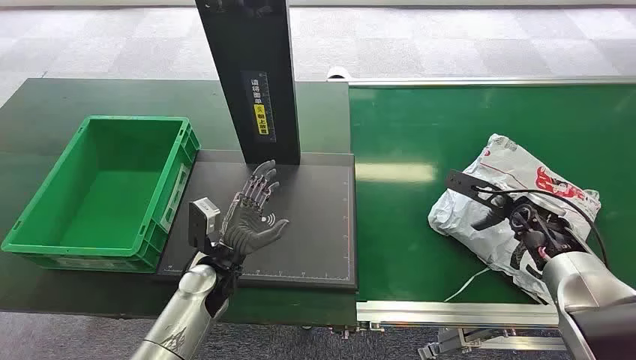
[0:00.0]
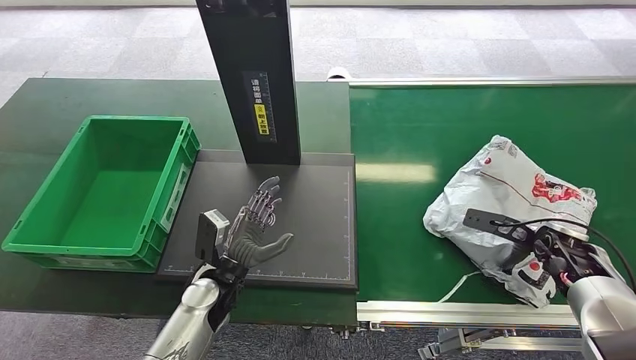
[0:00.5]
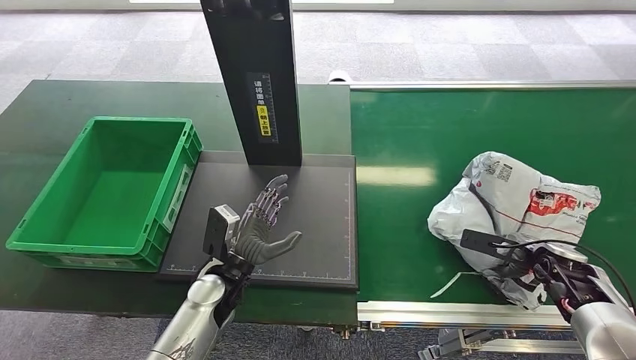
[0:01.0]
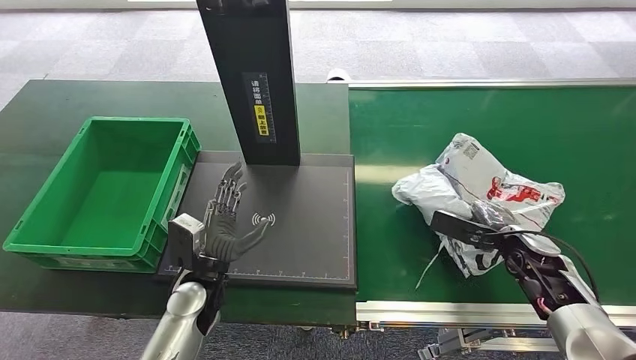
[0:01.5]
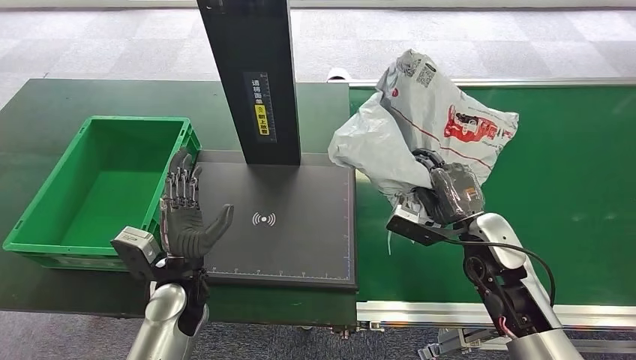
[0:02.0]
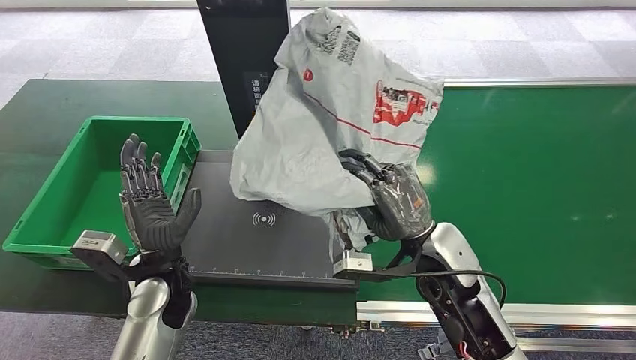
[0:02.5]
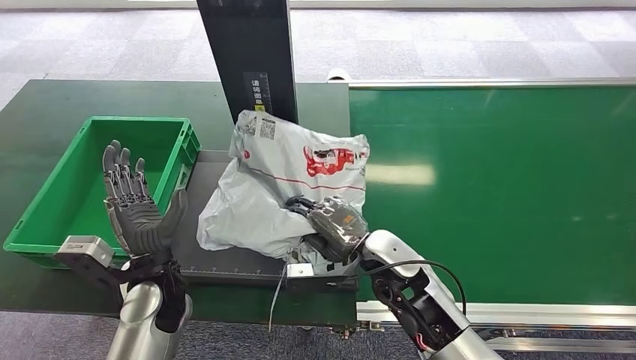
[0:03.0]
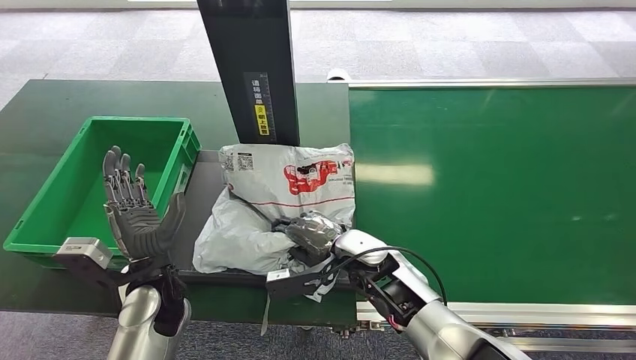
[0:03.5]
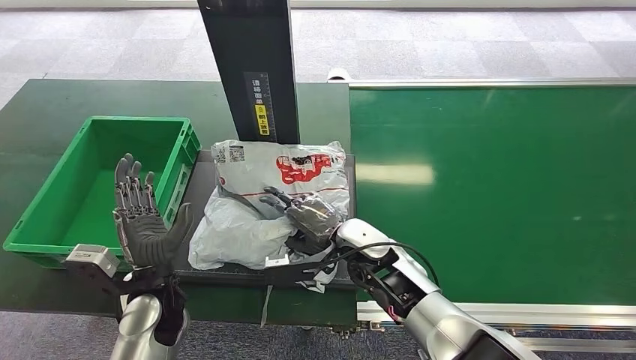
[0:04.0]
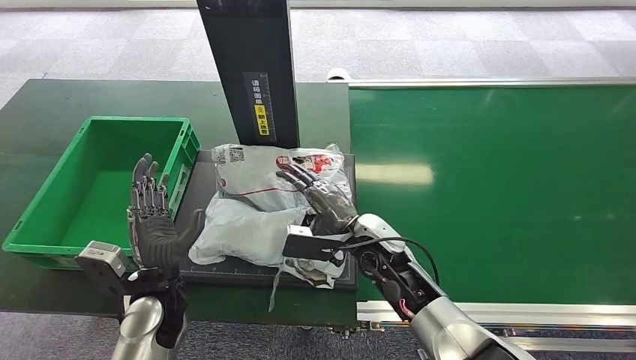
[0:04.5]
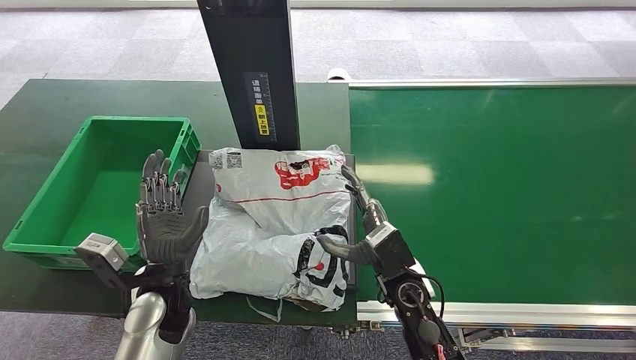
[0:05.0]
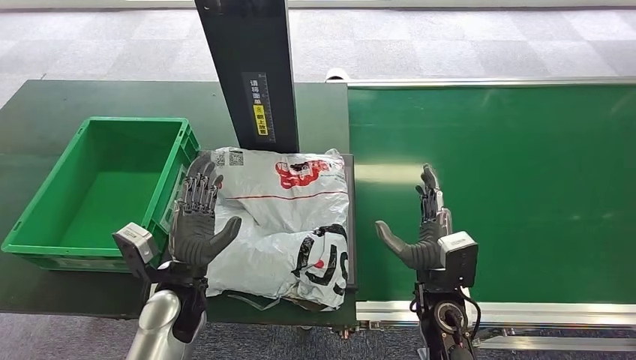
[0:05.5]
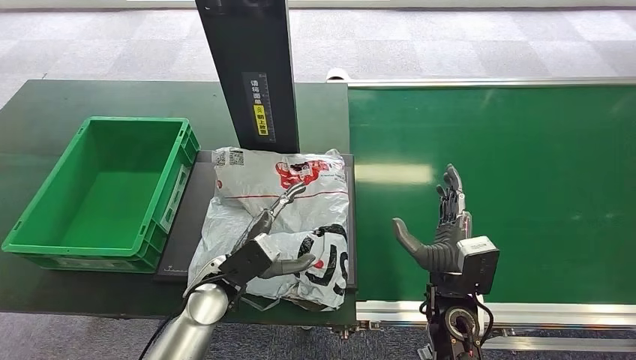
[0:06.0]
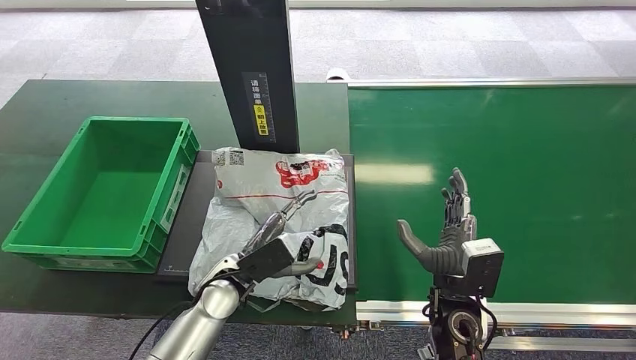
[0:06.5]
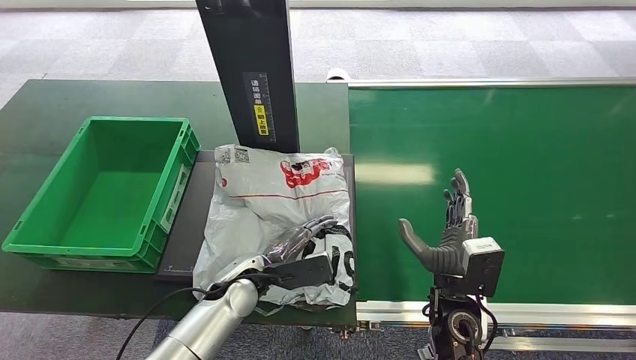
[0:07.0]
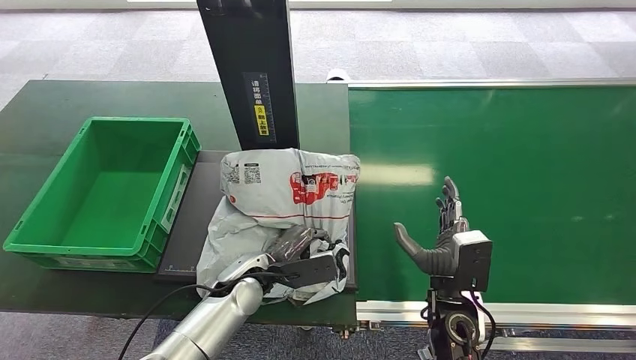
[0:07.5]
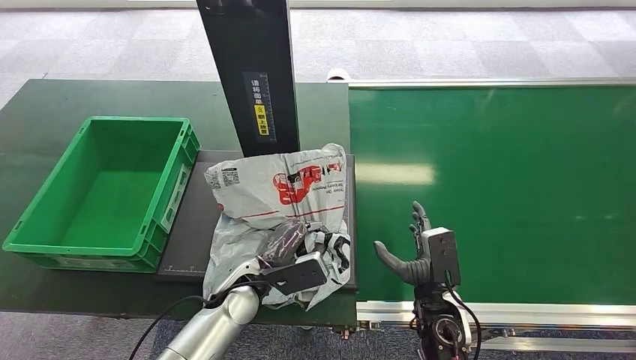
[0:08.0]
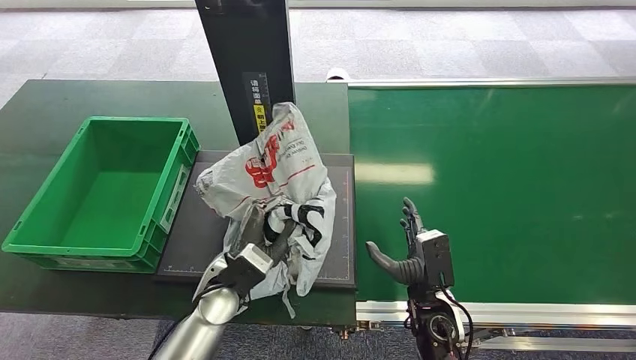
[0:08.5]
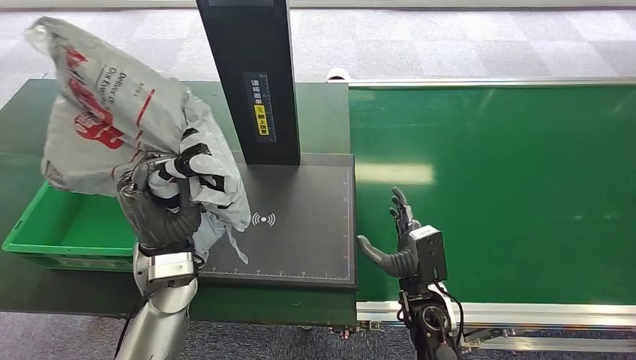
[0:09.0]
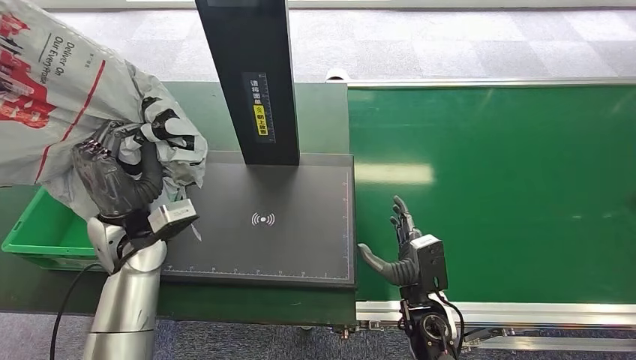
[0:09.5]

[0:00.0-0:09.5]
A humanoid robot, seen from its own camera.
Task of the whole recording: Weigh the package on the weighing device and place it in the left basket.
Step, 0:00.0 to 0:01.5: Pick up the package from the conveyor belt.
Step, 0:02.5 to 0:05.0: Place the package onto the inbound machine.
Step, 0:05.5 to 0:08.5: Pick up the package from the inbound machine.
0:04.0 to 0:05.5: The right hand travels to the right and backward by about 15 cm.
0:05.5 to 0:07.5: The left hand is displaced to the right by some 10 cm.

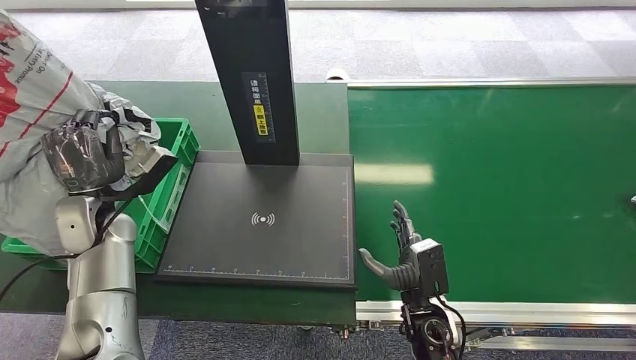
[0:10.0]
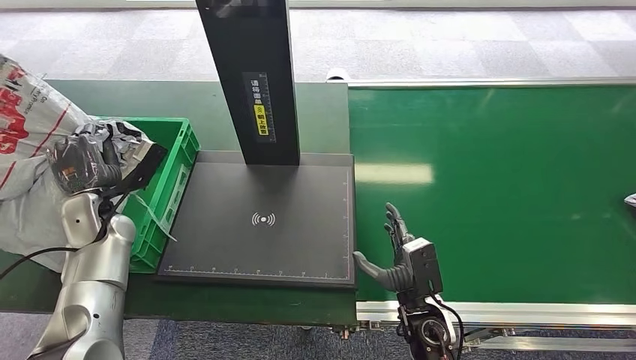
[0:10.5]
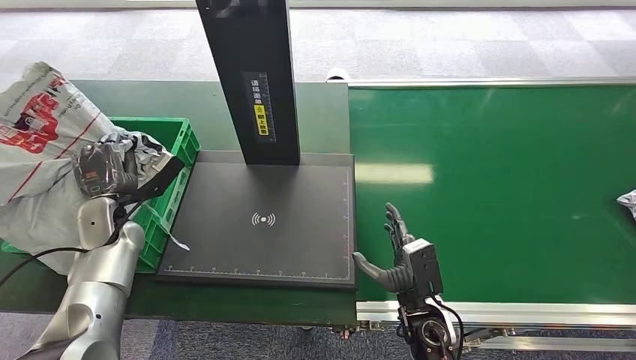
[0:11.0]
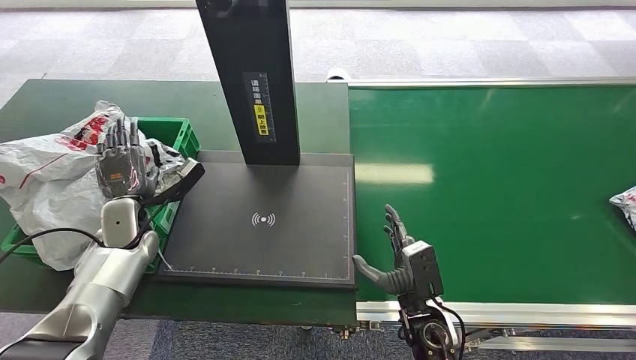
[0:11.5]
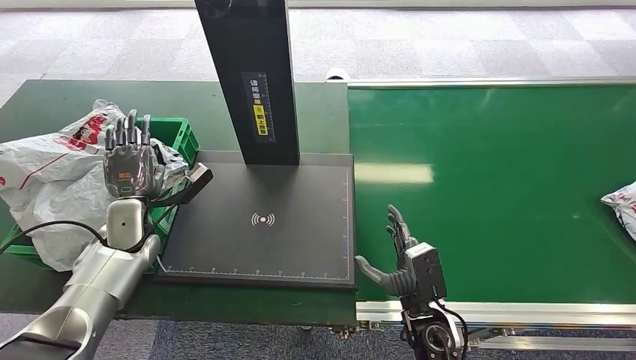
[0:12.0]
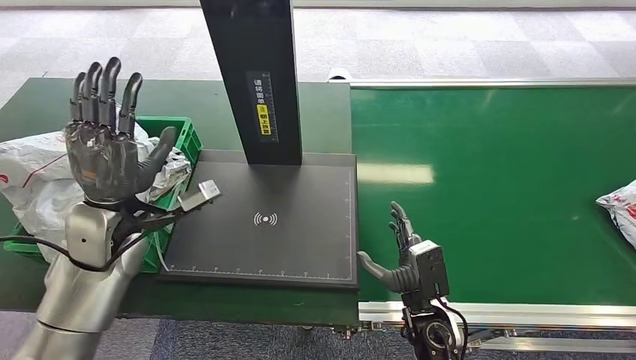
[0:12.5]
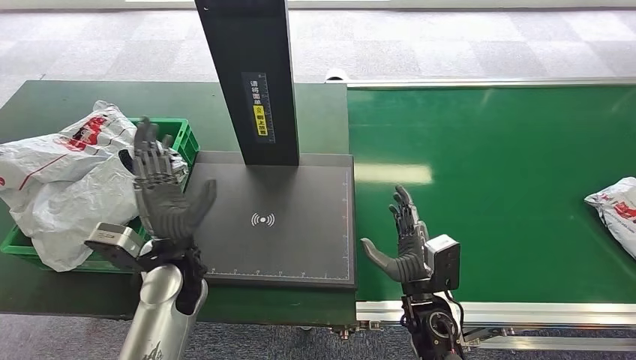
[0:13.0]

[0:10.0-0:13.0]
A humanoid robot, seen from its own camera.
Task of the whole recording: Weigh the package on the weighing device and place it in the left basket.
Step, 0:10.0 to 0:13.0: Place the package into the parcel locker.
0:10.0 to 0:11.5: The left hand goes roughly 5 cm downward.
0:11.5 to 0:13.0: The left hand moves to the right and backward, roughly 15 cm.

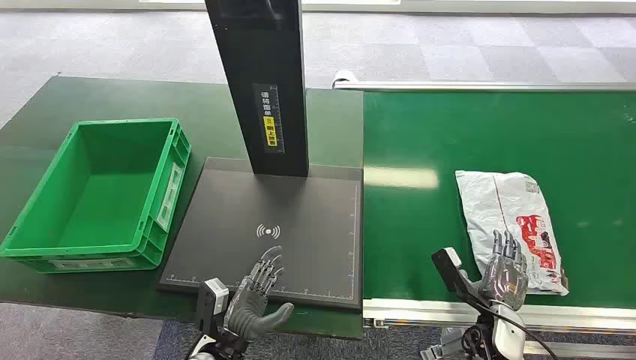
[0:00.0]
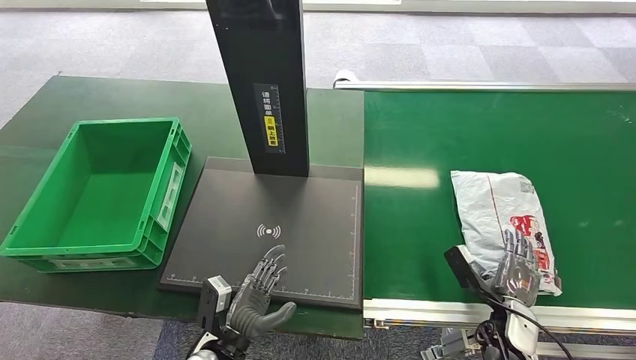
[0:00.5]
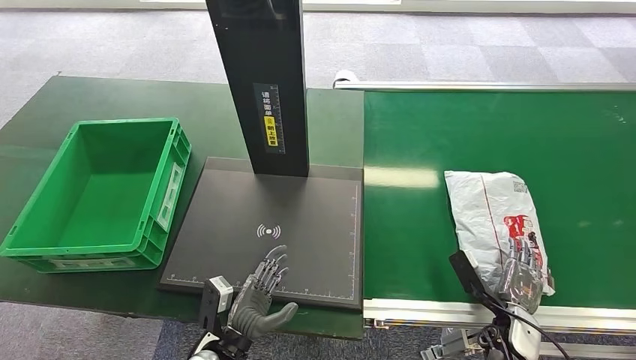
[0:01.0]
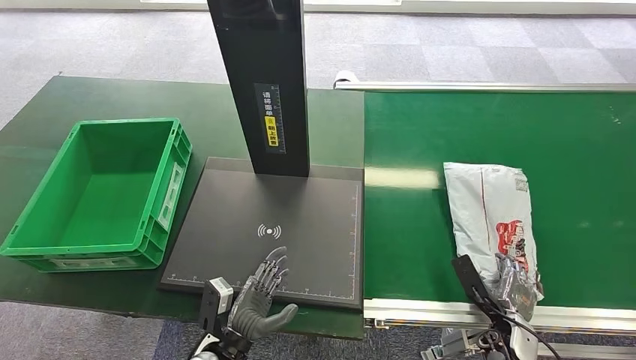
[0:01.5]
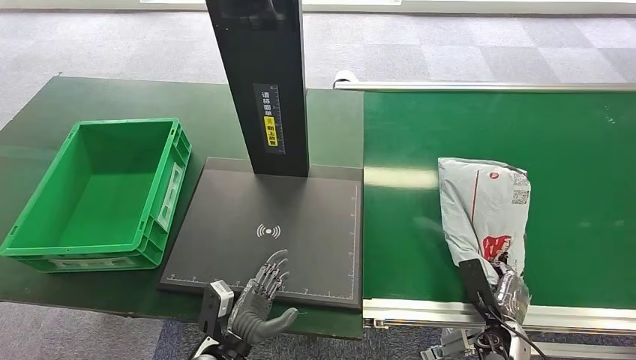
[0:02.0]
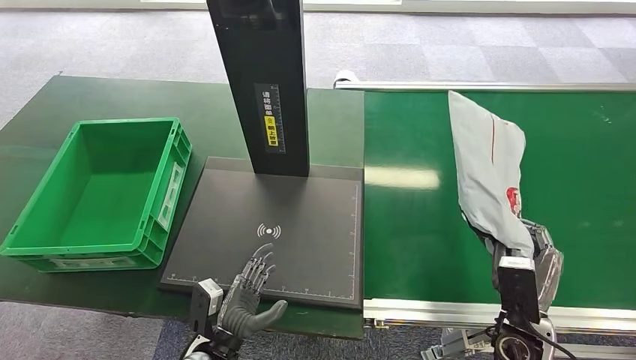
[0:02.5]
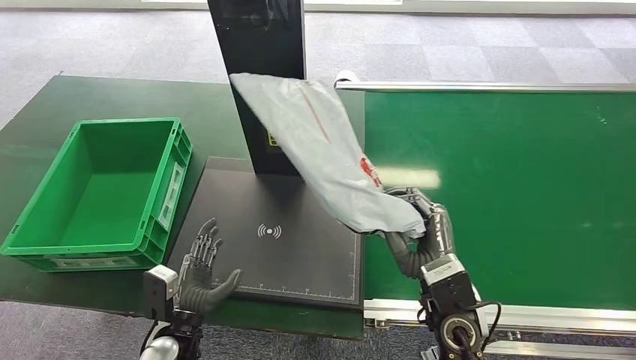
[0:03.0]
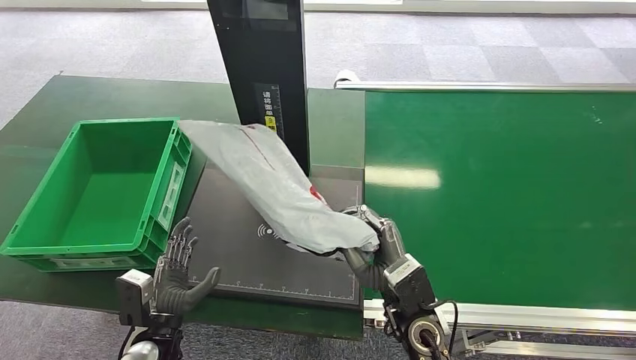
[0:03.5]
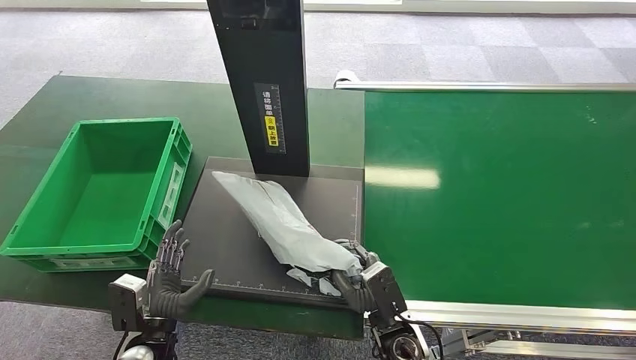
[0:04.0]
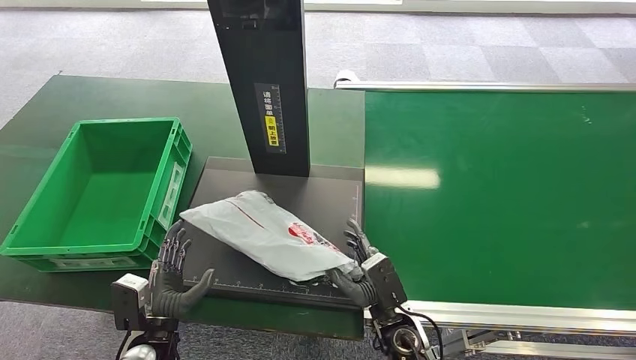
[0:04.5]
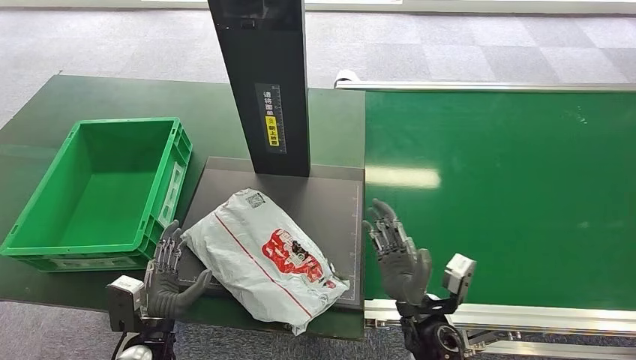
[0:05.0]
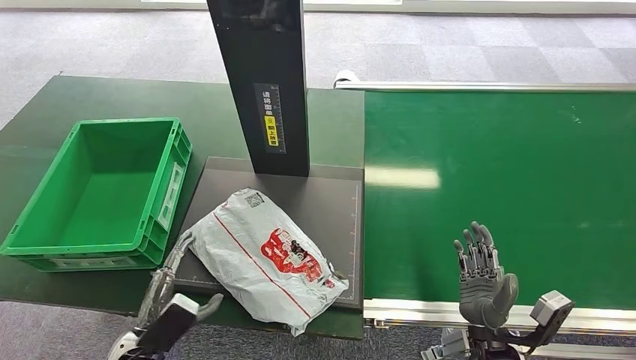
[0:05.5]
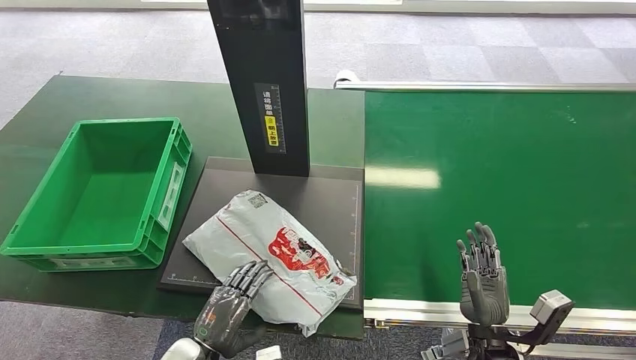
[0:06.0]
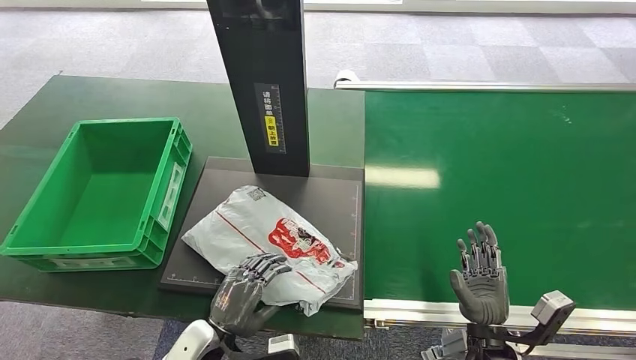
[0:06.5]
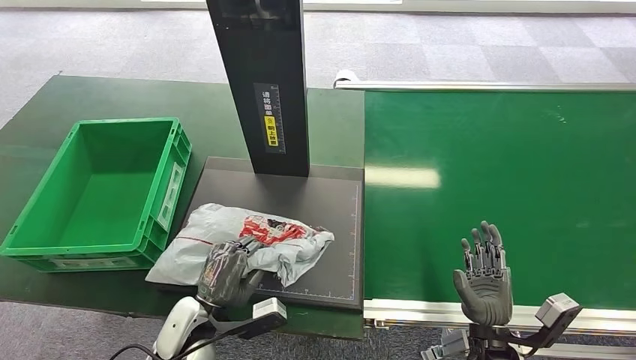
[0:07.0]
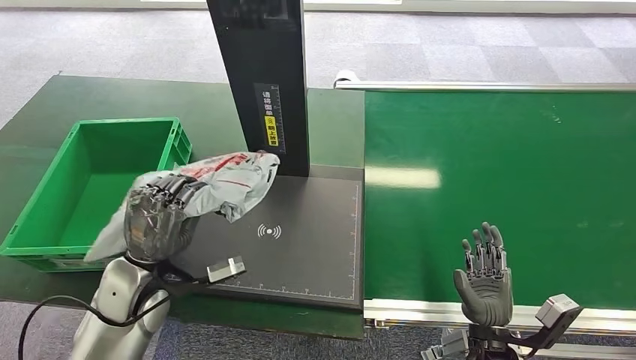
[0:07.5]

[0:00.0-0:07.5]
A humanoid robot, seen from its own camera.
Task of the whole recording: Weigh the package on the weighing device and place it in the left basket.
Step, 0:00.0 to 0:03.0: Pick up the package from the conveyor belt.
Step, 0:03.5 to 0:05.5: Place the package onto the inbound machine.
0:02.0 to 0:04.0: The left hand is displaced to the left by some 10 cm; the right hand is displaced to the left by approximately 20 cm.
0:04.0 to 0:05.5: The right hand is displaced to the right by some 15 cm.
0:05.5 to 0:07.5: The left hand heads upward and forward, covering some 15 cm.
